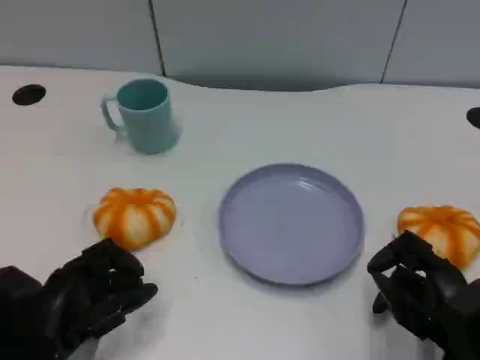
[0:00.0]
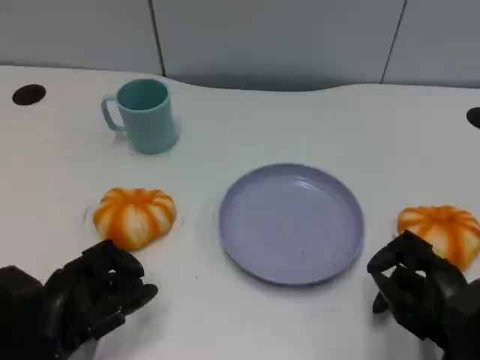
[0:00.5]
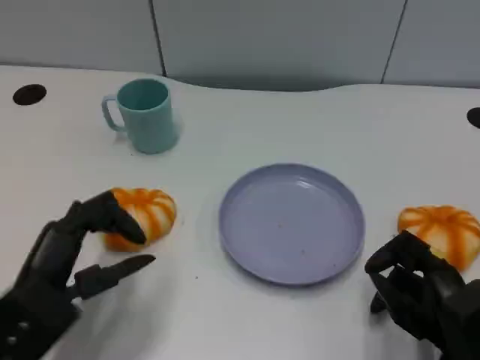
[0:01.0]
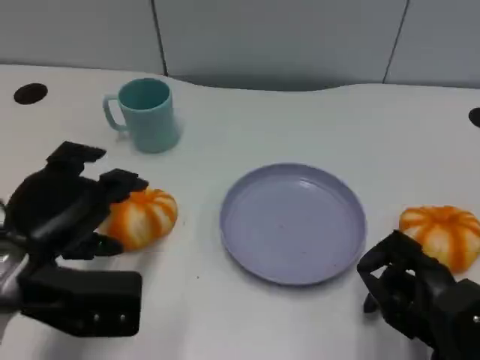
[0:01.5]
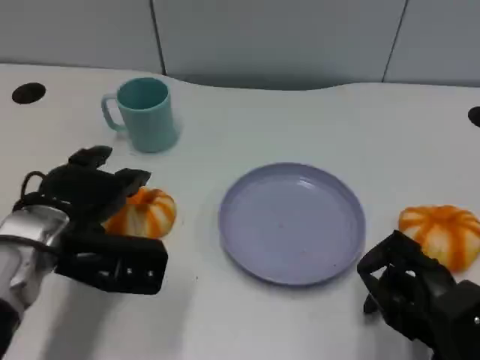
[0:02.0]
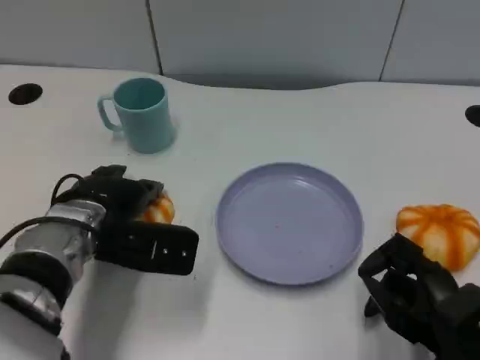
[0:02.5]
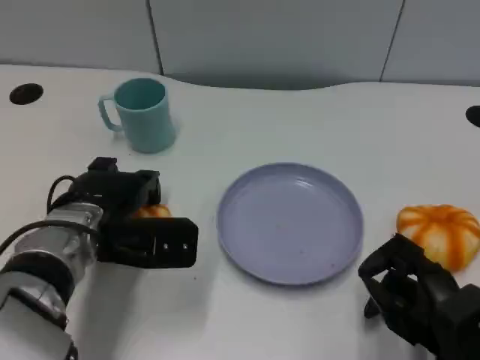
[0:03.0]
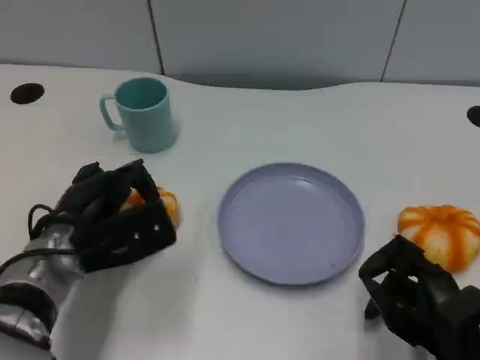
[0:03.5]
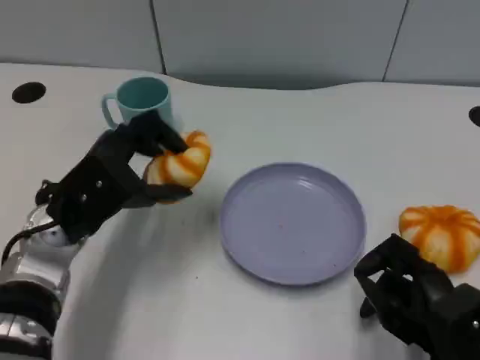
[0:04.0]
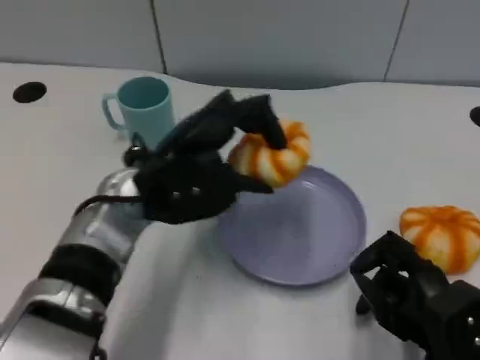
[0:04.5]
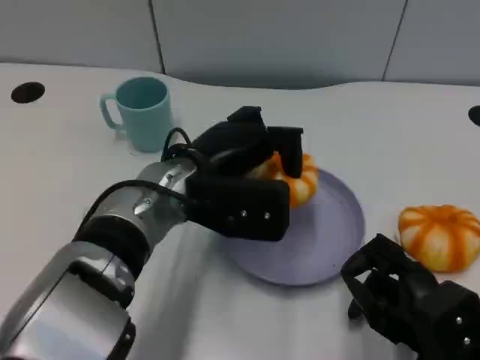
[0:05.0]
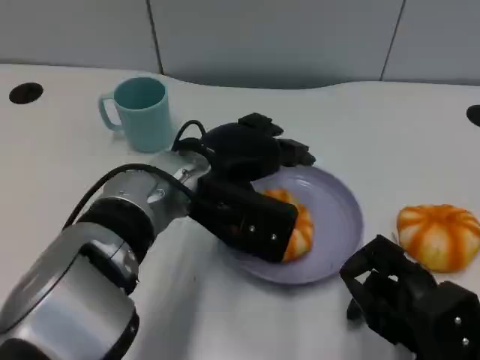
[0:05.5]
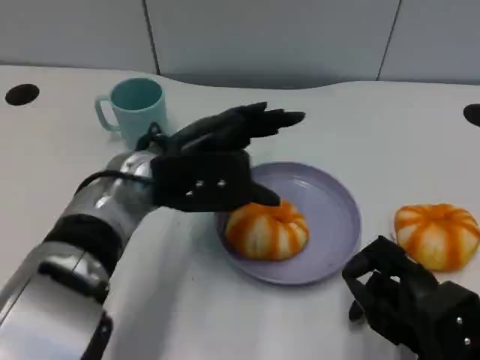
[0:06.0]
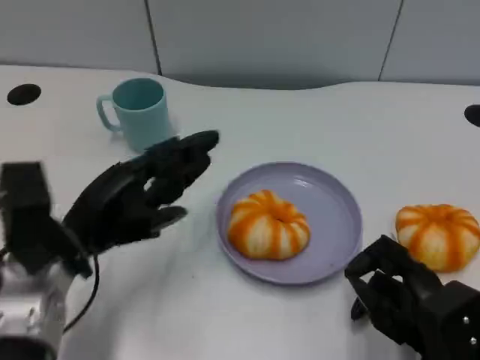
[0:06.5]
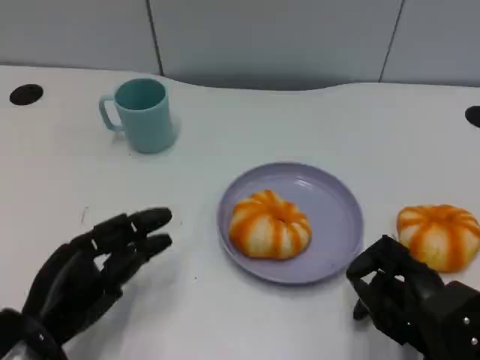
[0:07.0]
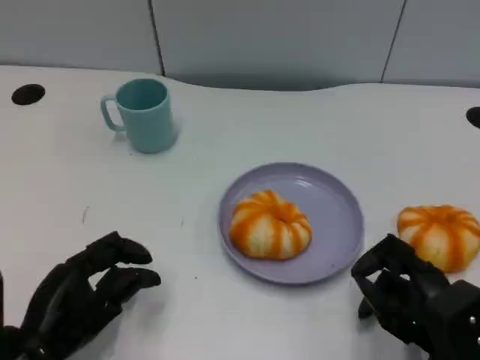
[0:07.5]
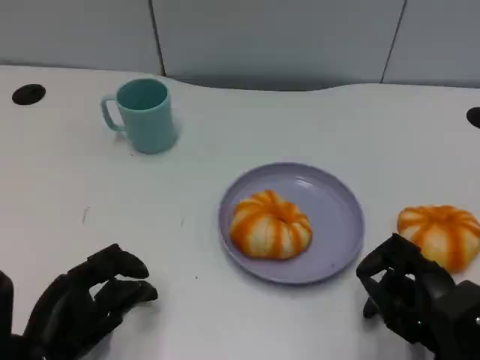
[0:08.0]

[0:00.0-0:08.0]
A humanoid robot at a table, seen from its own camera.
Task of the whole recording: Grasp the bread from the table and place it into the plate.
0:00.0 to 0:02.0: The left hand heads forward and upward, covering approximately 15 cm.
0:04.0 to 0:06.0: The left hand moves to the right, roughly 5 cm.
0:06.0 to 0:08.0: The left hand travels backward, to the left and downward by approximately 20 cm.

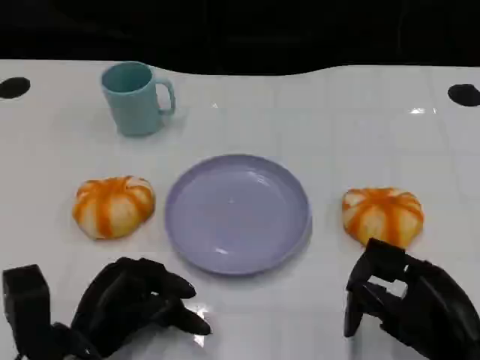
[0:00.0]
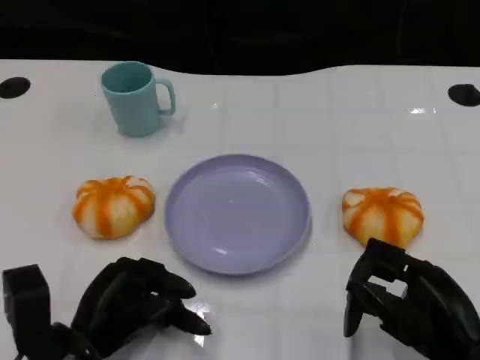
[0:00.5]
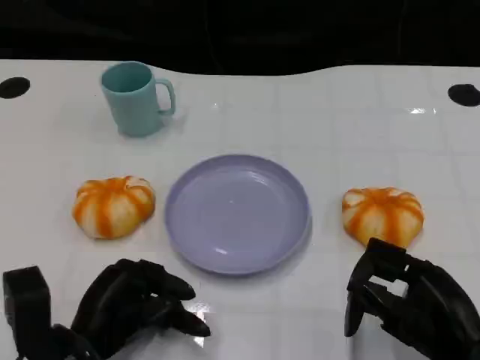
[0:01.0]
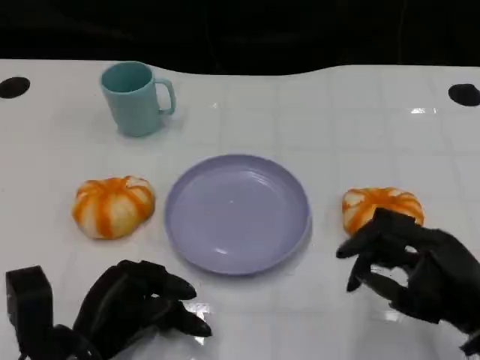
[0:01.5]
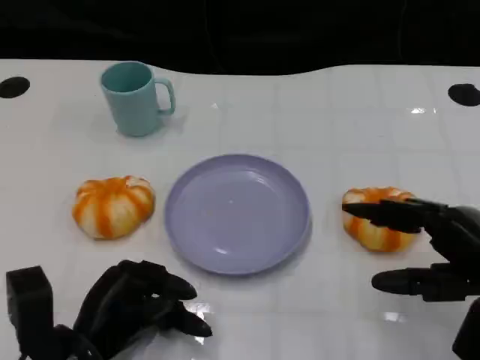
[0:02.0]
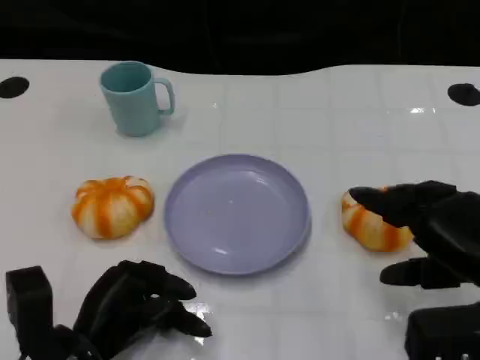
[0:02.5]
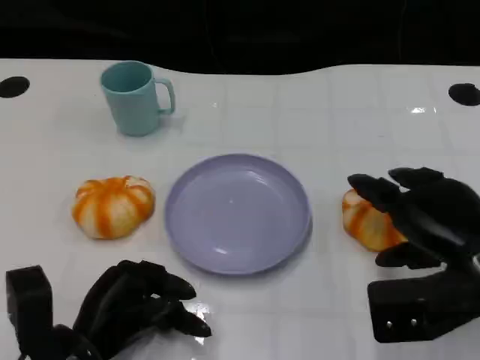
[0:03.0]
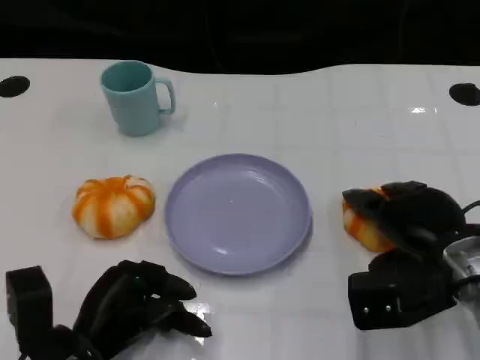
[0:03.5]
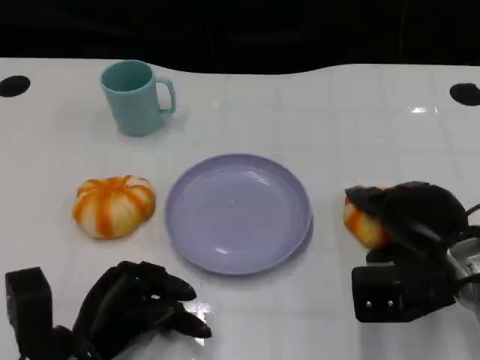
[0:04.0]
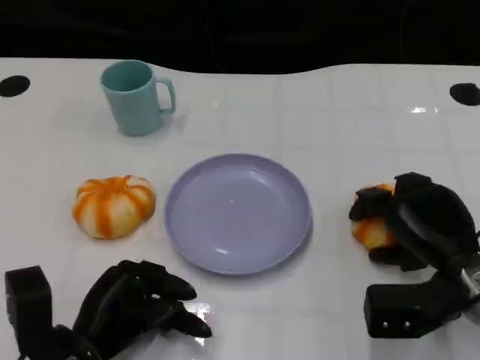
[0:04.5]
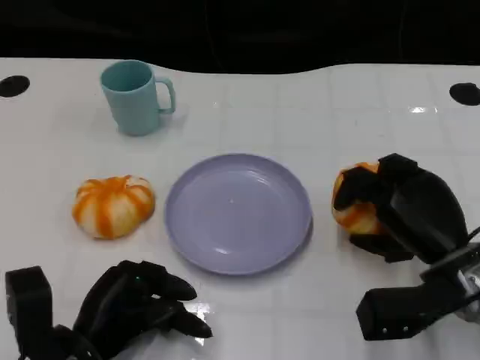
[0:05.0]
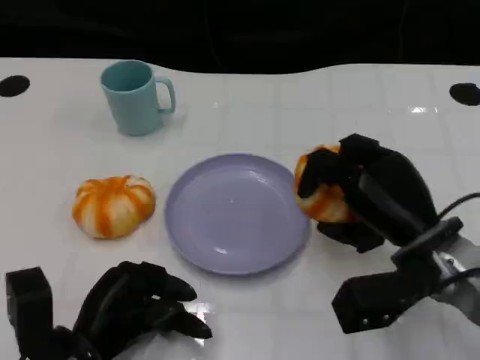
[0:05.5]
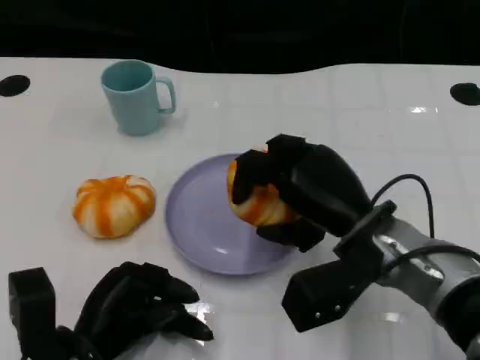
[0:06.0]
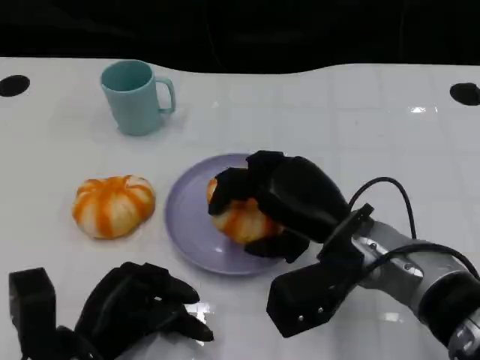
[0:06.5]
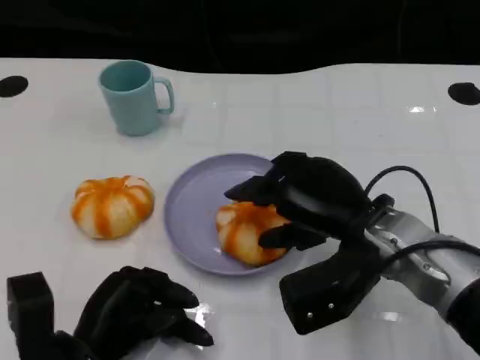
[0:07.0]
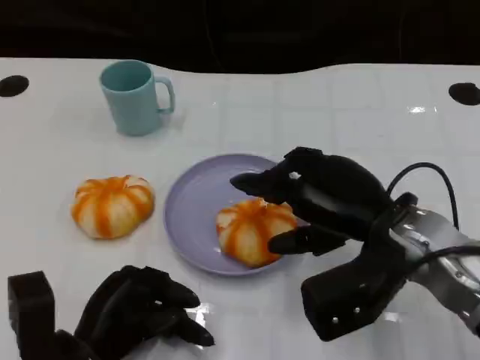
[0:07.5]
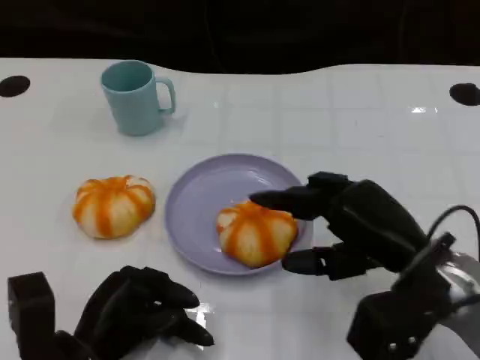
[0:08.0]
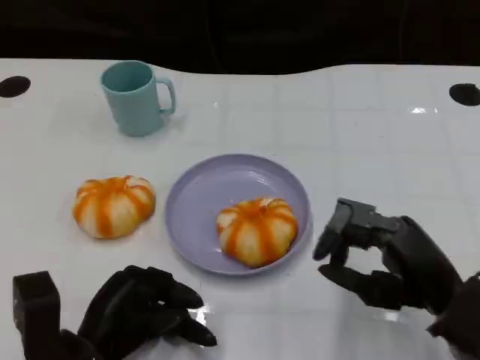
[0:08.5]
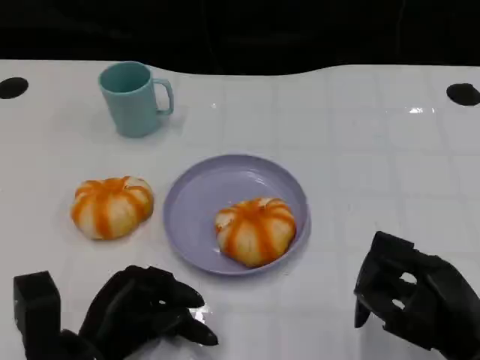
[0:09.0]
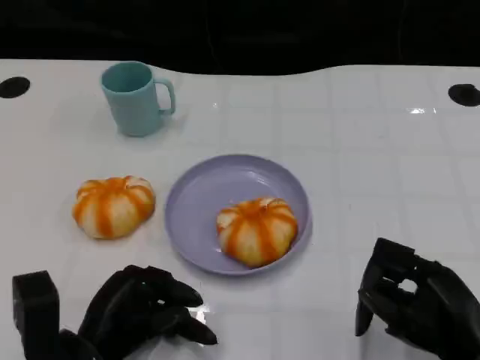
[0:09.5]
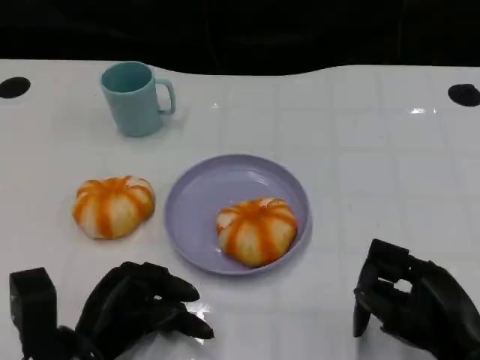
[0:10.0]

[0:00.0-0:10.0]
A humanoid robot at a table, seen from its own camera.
Task of the whole recording: Grasp the bread from the table and place it into the plate.
0:00.0 to 0:02.0: The right hand shifts roughly 5 cm upward.
0:02.0 to 0:04.0: The right hand goes some 10 cm forward and downward.
0:04.0 to 0:06.0: The right hand shifts some 10 cm to the left.
0:06.0 to 0:08.0: The right hand goes about 5 cm to the right.
0:08.0 to 0:10.0: The right hand moves backward, about 5 cm.

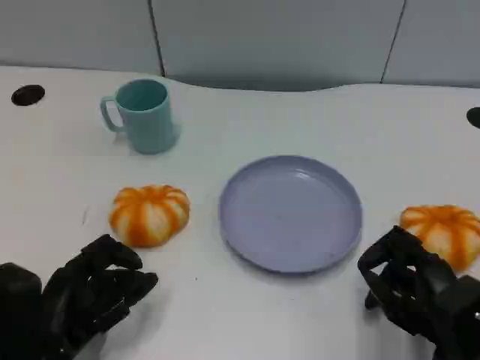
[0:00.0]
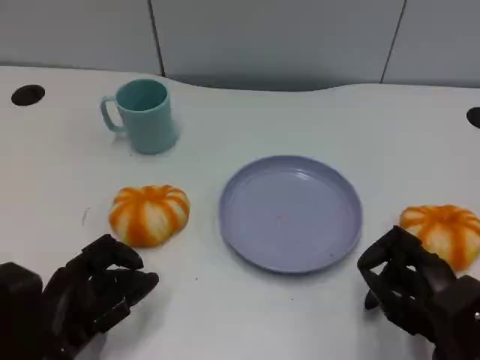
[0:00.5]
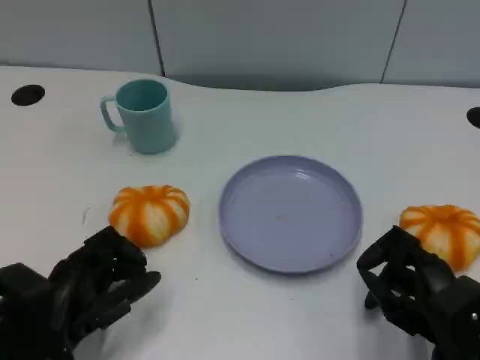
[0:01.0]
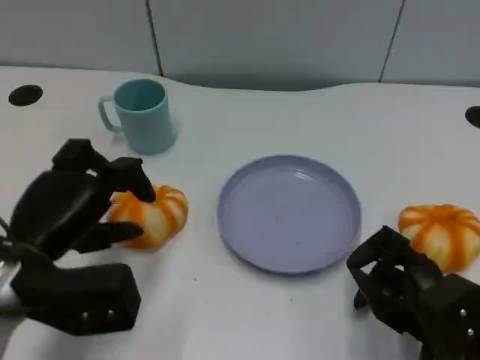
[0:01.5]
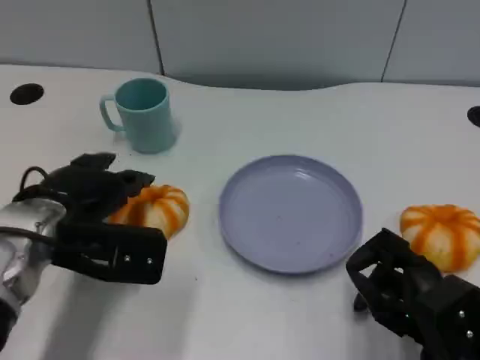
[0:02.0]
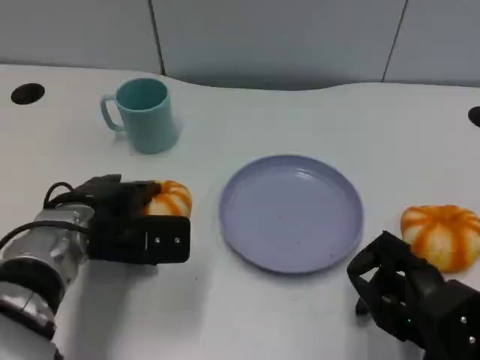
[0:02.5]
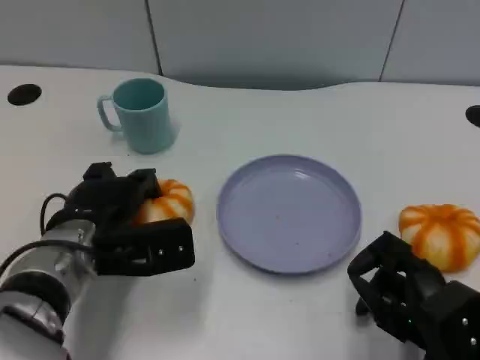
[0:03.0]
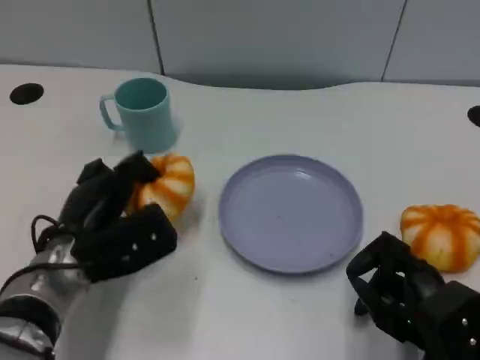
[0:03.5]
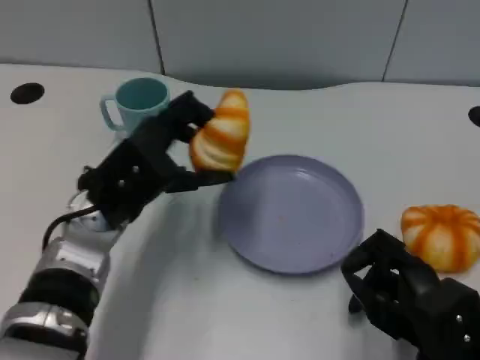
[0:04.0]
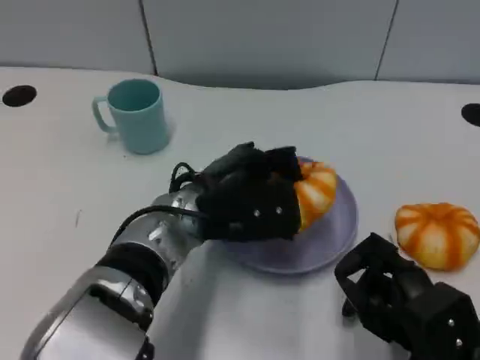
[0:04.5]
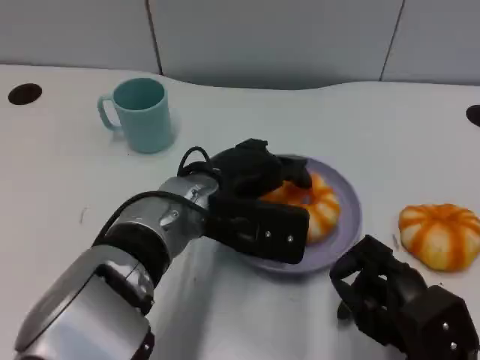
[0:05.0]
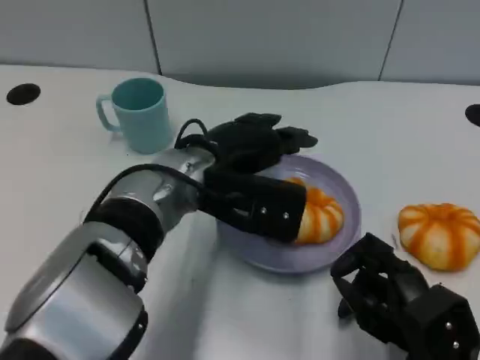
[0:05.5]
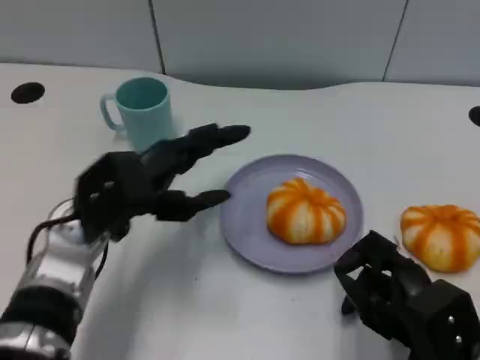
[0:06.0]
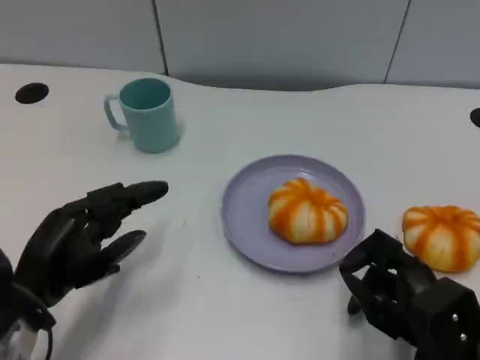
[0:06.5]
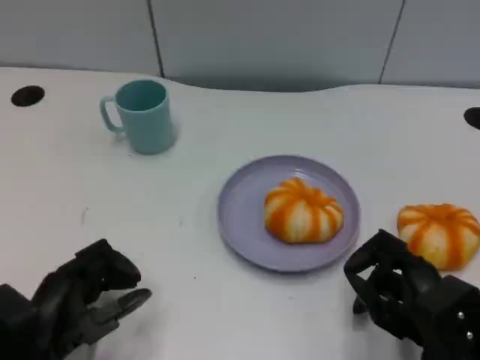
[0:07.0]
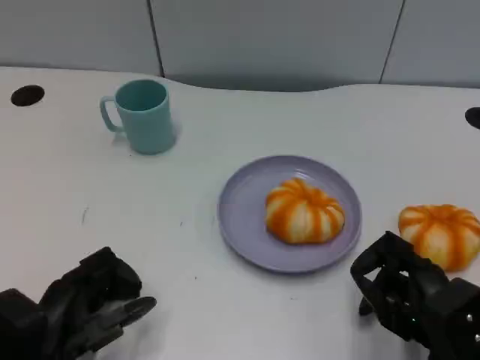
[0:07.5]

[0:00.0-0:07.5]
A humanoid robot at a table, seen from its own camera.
Task of the whole recording: Grasp the bread from the table and place it into the plate.
0:00.0 to 0:02.0: The left hand shifts some 15 cm forward and upward.
0:02.0 to 0:04.0: The left hand shifts approximately 5 cm to the right.
0:04.0 to 0:05.5: The left hand shifts roughly 10 cm to the right.
0:05.5 to 0:07.5: The left hand shifts approximately 25 cm to the left, backward and downward.
